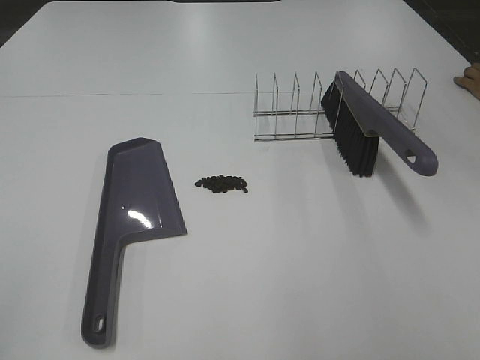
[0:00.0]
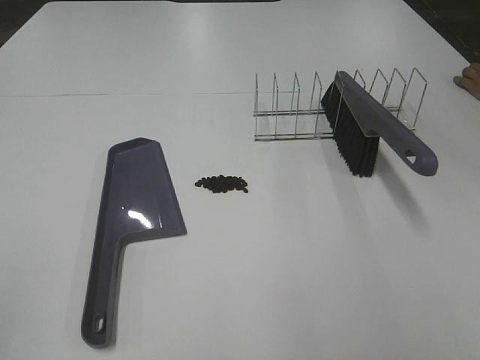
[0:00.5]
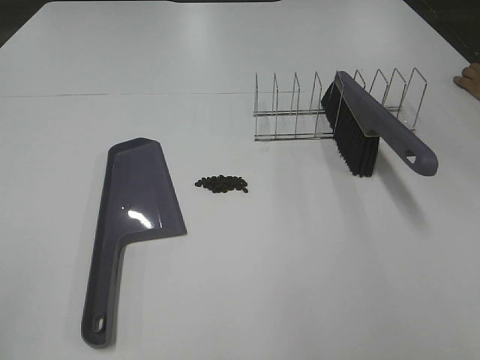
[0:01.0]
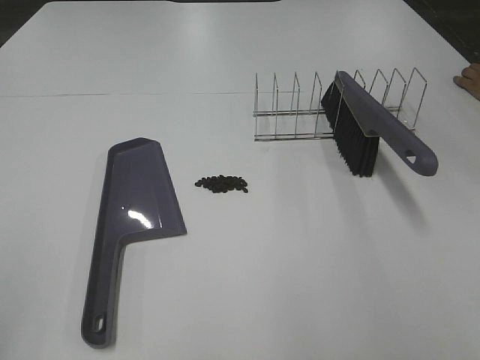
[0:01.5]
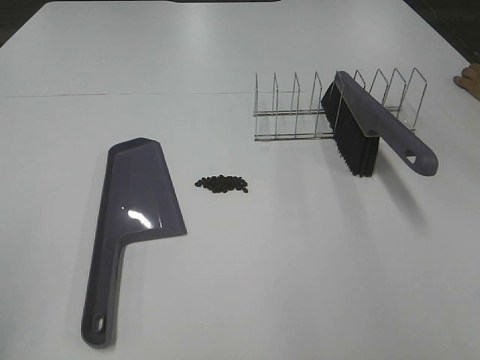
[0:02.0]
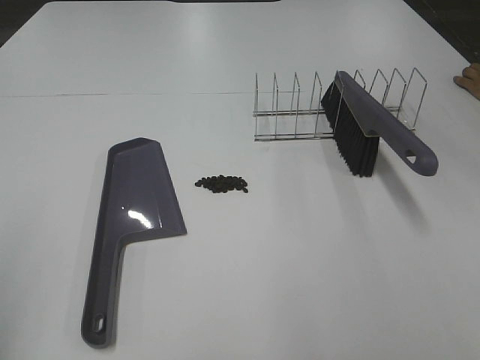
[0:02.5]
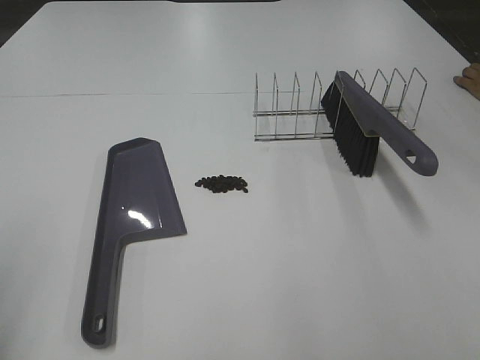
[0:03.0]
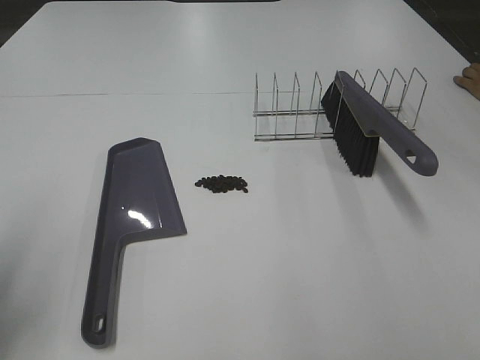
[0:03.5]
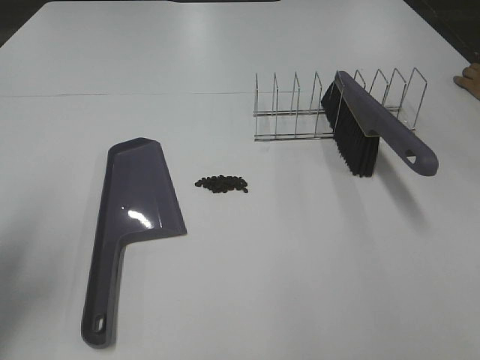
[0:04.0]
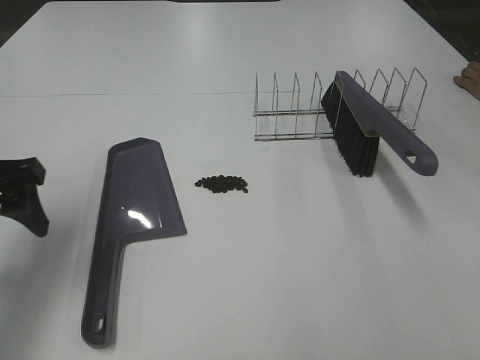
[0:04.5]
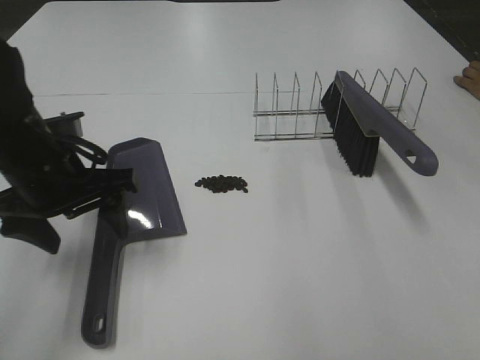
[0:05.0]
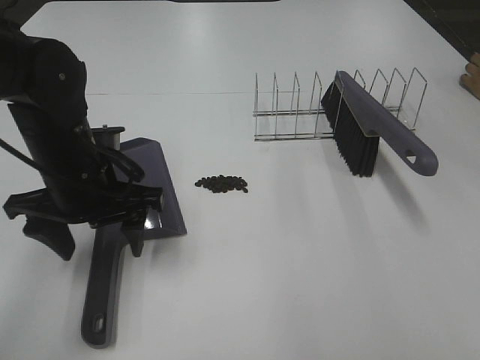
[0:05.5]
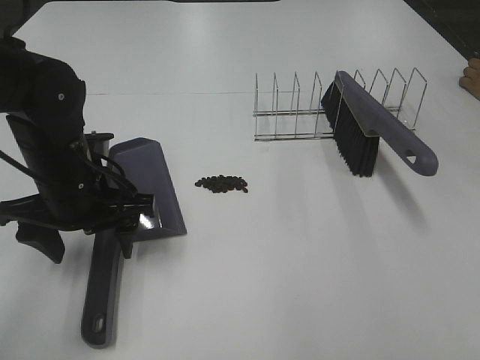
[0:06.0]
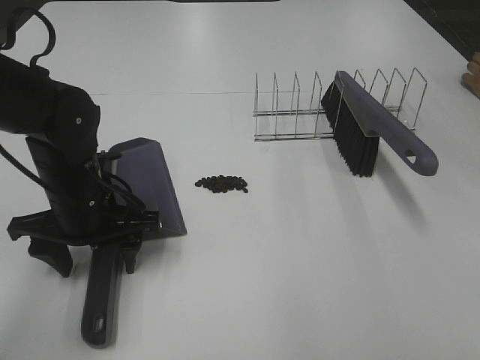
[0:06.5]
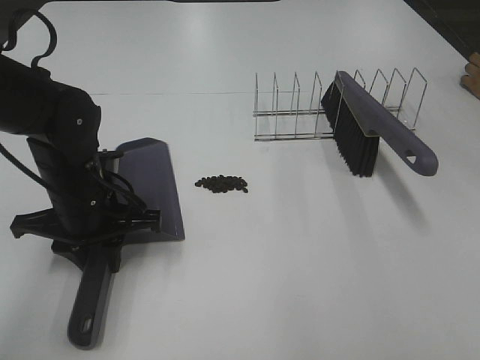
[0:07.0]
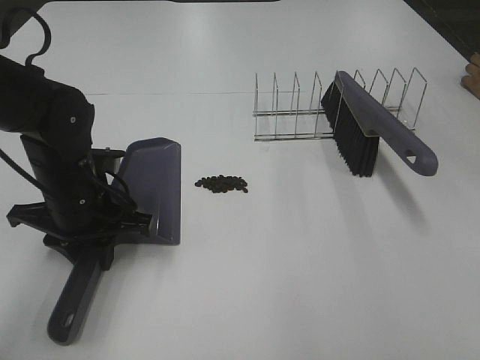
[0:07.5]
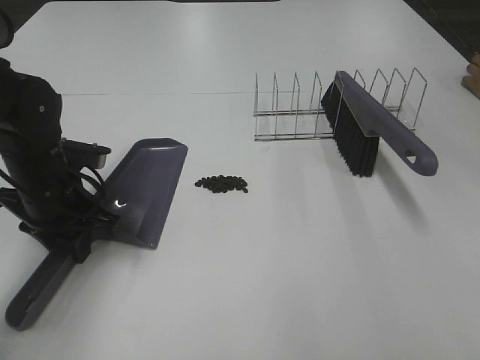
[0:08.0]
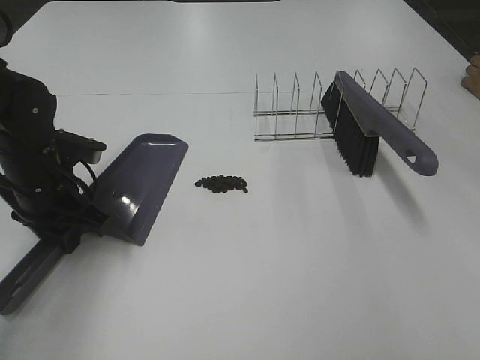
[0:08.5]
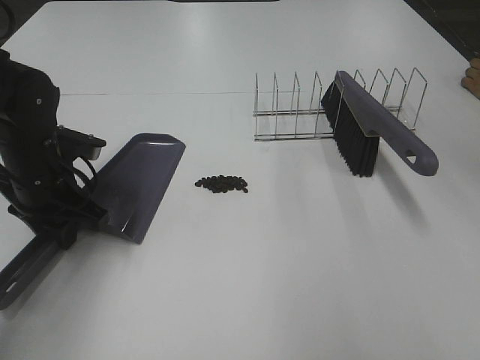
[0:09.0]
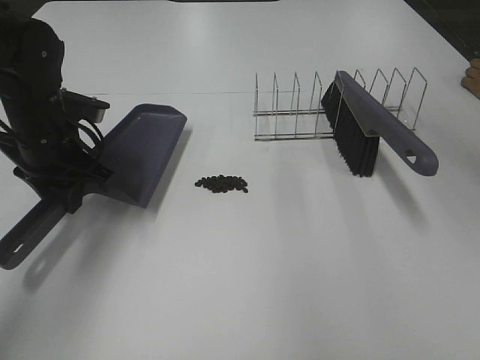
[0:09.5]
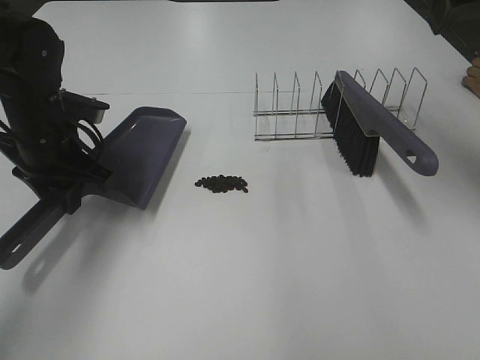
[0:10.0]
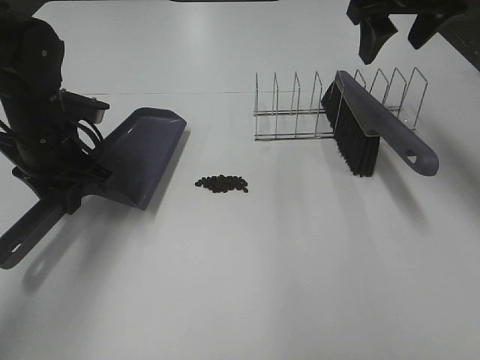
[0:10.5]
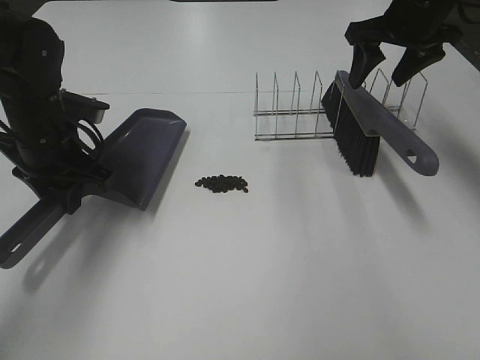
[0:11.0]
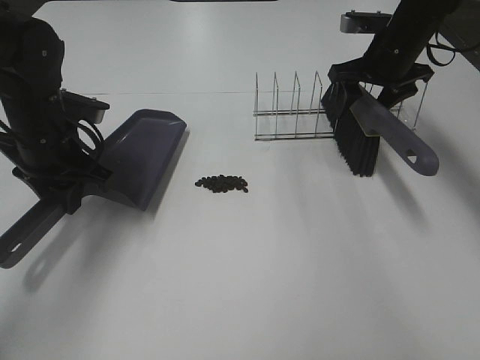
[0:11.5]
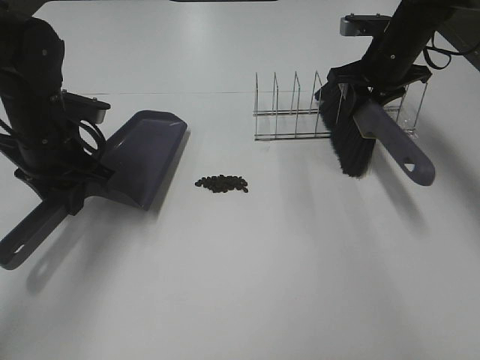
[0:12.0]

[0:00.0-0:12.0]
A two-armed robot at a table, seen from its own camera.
Task of the whole recording: Sweep Coffee Bean.
Step, 0:00.0 to 0:07.0: Left hand: grab the dustpan.
0:02.0 to 0:04.0: The left gripper goes about 15 cm forward and downward.
0:04.0 to 0:06.0: The left gripper shifts roughly 20 cm to the right, downward and forward.
0:06.0 to 0:08.0: The left gripper moves roughly 5 cm, and closes.
0:08.0 to 0:10.0: The left gripper ends up about 5 cm from where it was, while the right gripper goes roughly 35 cm forward.
0:10.0 to 0:12.0: The right gripper travels downward and forward by some 25 cm, and closes.

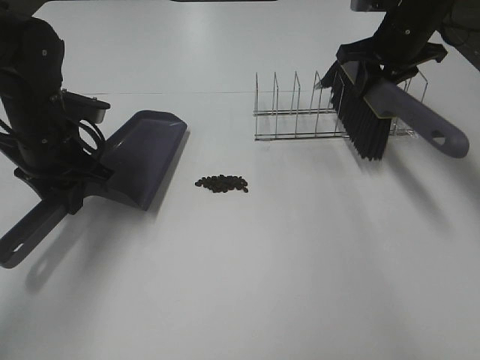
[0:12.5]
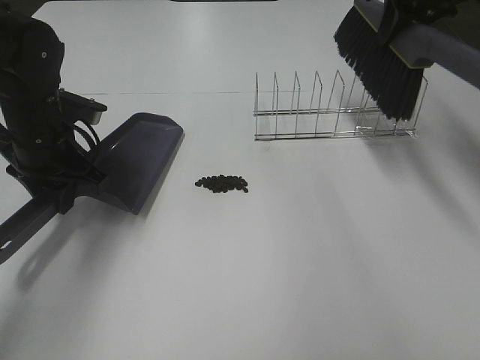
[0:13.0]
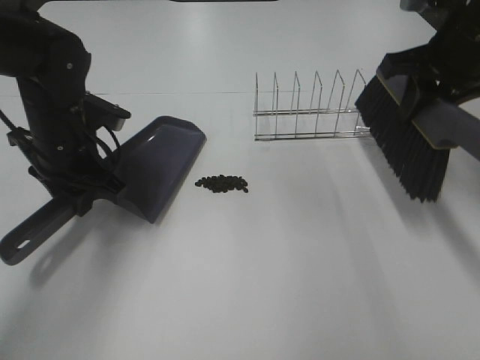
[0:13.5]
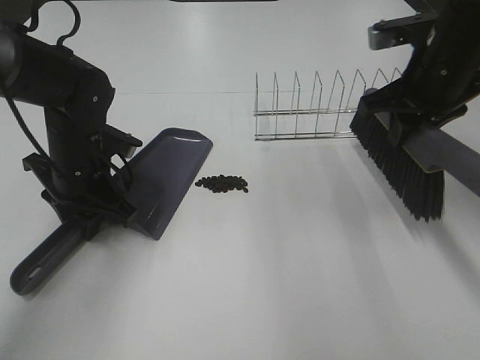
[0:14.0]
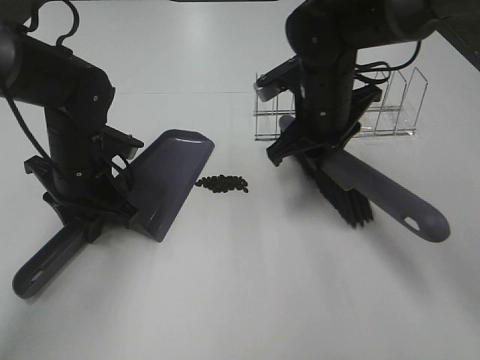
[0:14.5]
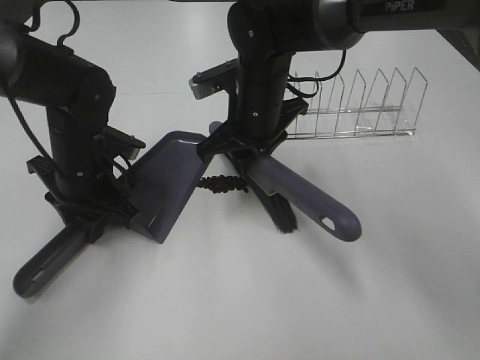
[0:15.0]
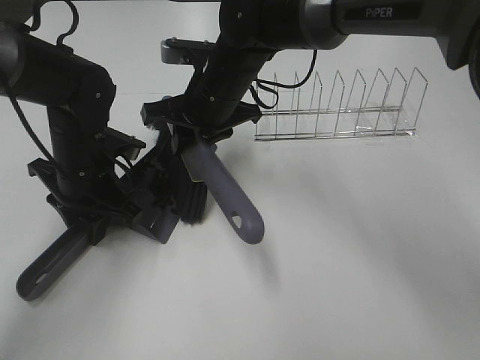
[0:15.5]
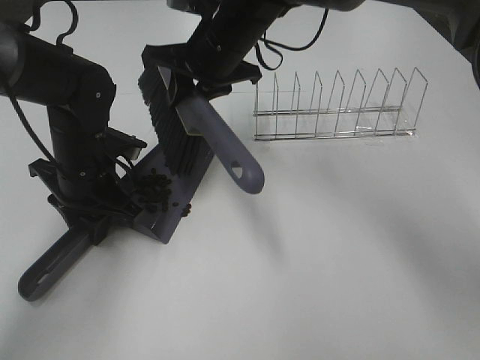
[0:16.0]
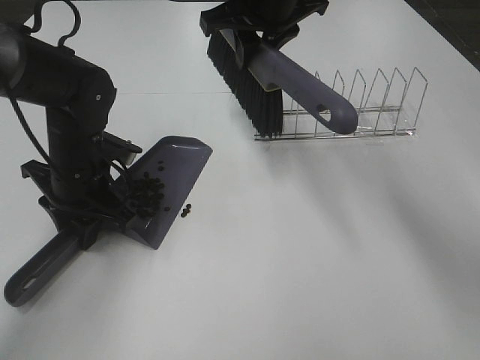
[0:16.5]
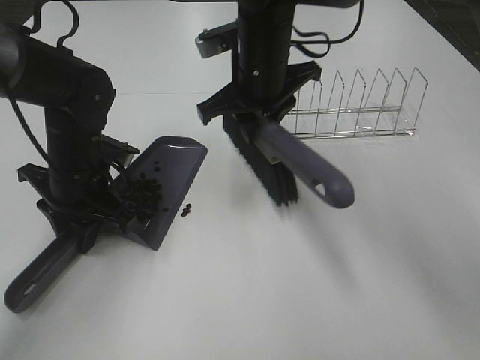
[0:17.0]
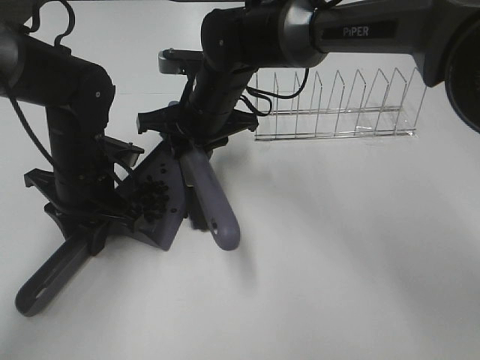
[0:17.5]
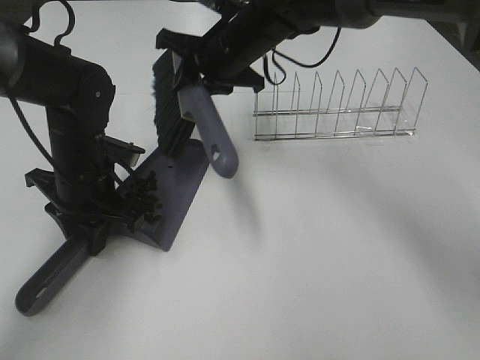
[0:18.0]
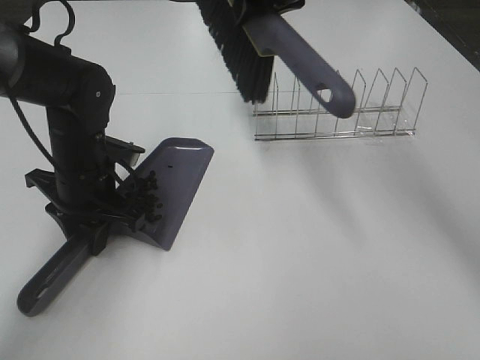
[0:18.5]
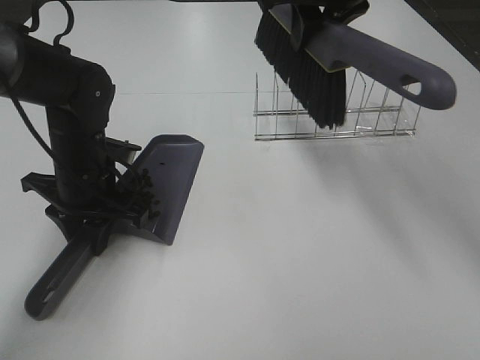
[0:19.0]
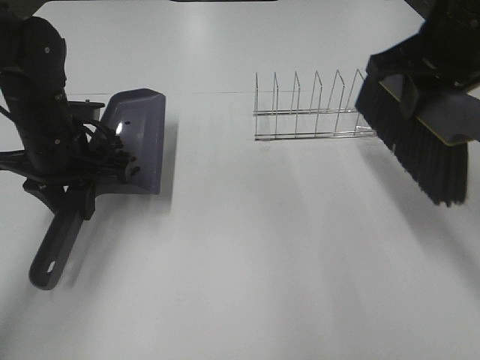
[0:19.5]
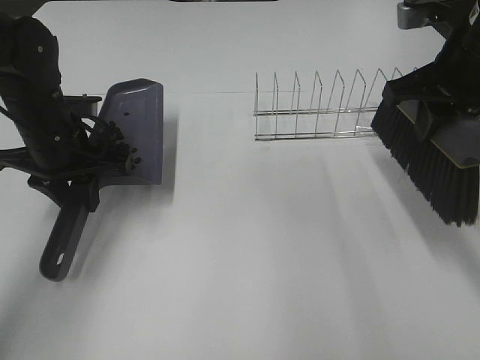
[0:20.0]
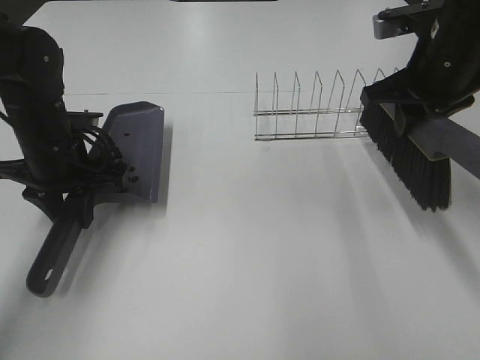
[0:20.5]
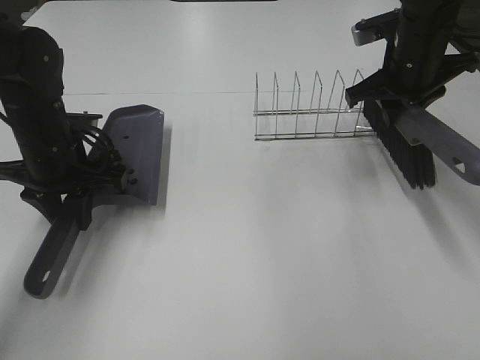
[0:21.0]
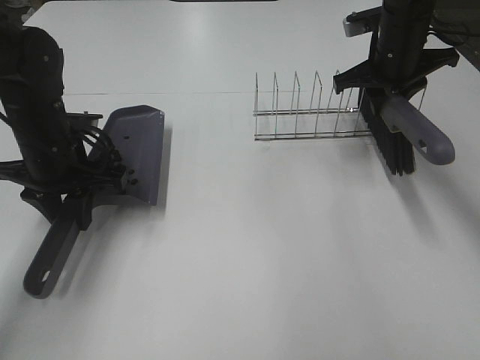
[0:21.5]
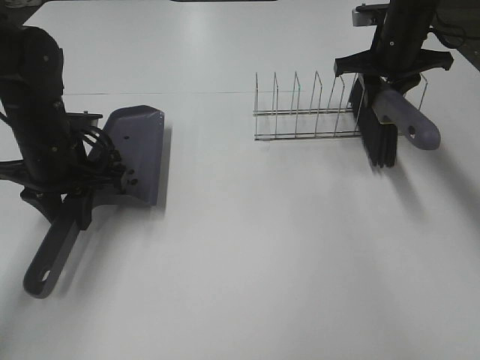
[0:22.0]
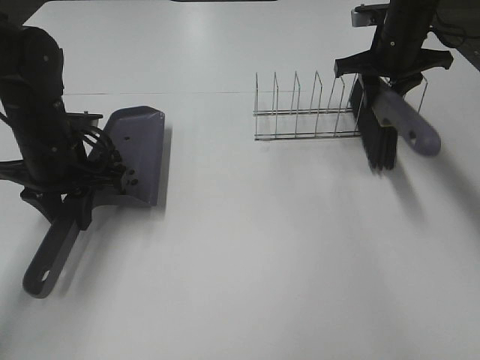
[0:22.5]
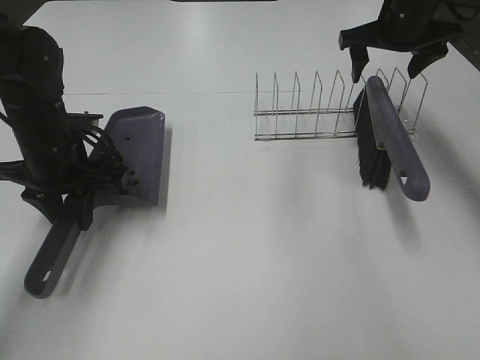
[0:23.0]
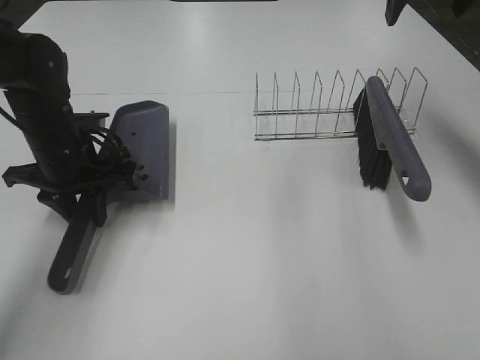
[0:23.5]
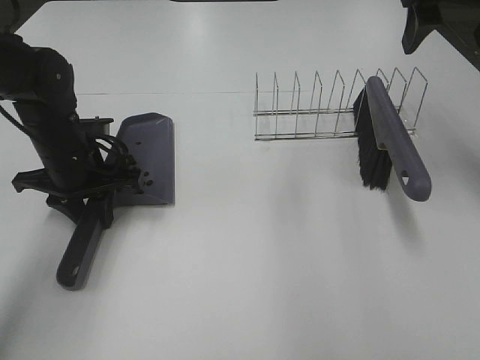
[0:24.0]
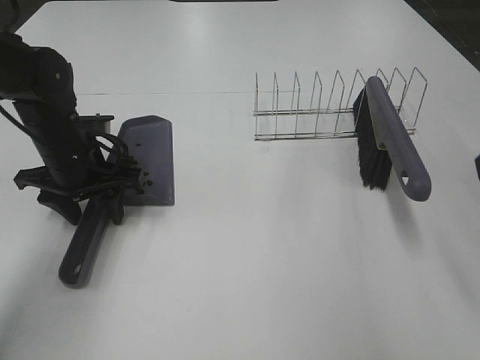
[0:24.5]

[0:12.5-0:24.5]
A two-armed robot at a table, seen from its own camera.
Task of the whole recording: Sweep Coffee Bean.
Step, 0:12.5 to 0:17.5: Right hand:sweep the coffee beans into the dustpan.
Step, 0:18.0 to 0:22.5: Right hand:place the broom on the rack.
0:12.5 to 0:14.5: The left gripper ends up about 5 cm from where it was; the right gripper goes some 15 cm to the left and backward.
0:14.5 to 0:16.5: The right gripper goes approximately 15 cm upward, forward and to the left.
0:16.5 to 0:18.5: The right gripper goes downward and returns, approximately 15 cm each way.
0:18.5 to 0:20.5: The right gripper heads to the right, downward and backward, covering roughly 20 cm. Meanwhile the left gripper shifts by approximately 5 cm.
0:20.5 to 0:22.5: The right gripper moves forward, about 15 cm.
0:22.5 to 0:24.5: The left gripper opens up. The right gripper is displaced backward by some 35 cm, and opens its fingers.

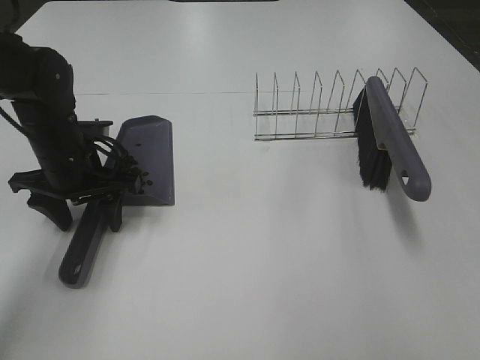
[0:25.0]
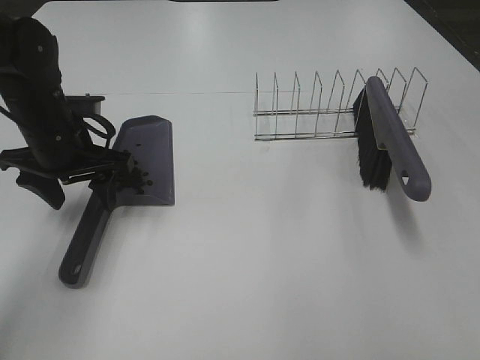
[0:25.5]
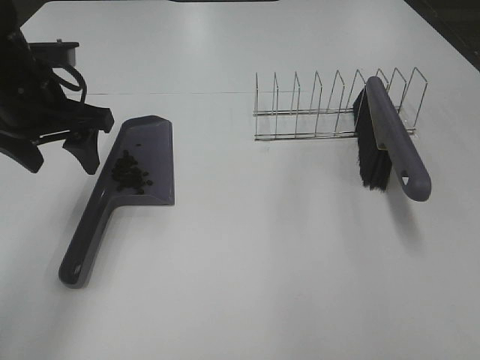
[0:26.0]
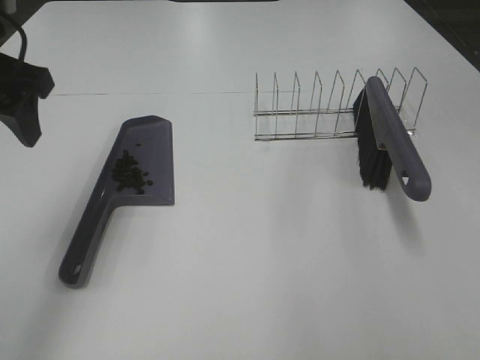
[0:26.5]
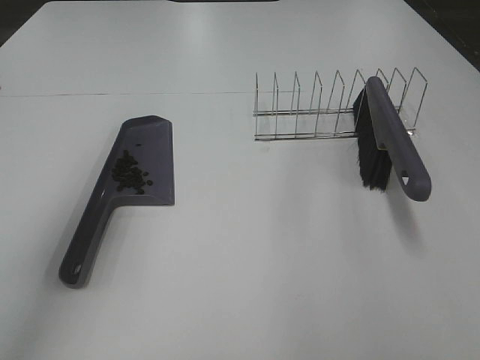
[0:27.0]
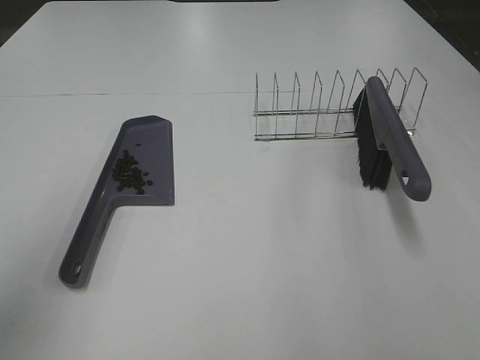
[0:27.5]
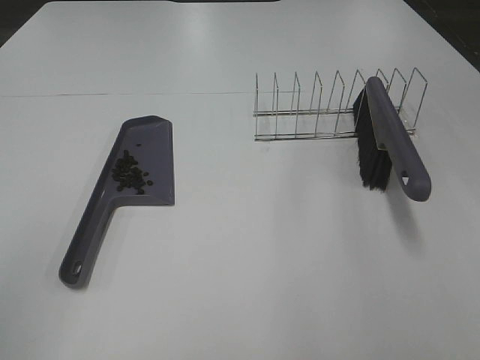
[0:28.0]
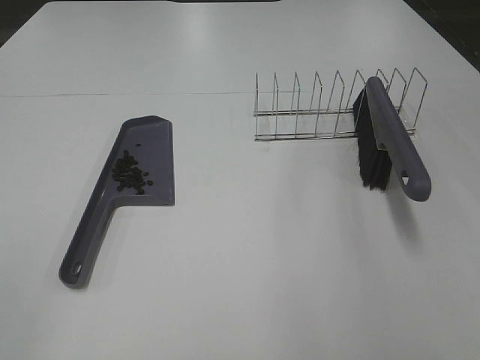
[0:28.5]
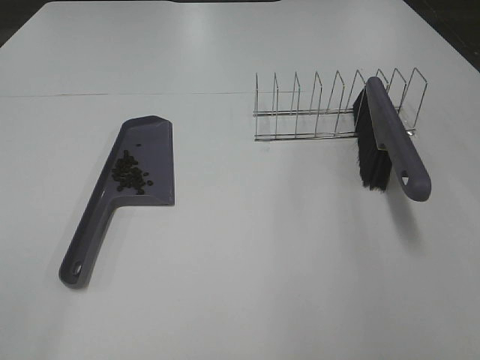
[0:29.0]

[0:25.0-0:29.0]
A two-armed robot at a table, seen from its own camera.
Task of the whole recording: Sweep Coffee Bean.
0:25.0 to 0:27.0: The left gripper is displaced upward and backward by some 25 cm.
0:27.0 to 0:29.0: The left gripper travels backward by approximately 25 cm.
